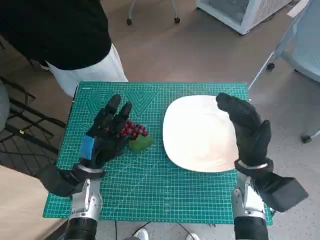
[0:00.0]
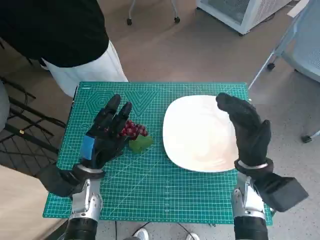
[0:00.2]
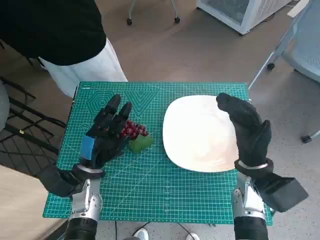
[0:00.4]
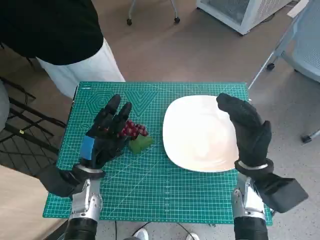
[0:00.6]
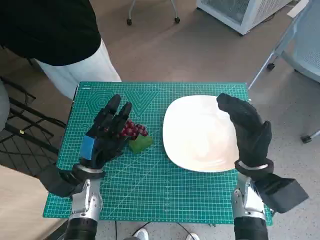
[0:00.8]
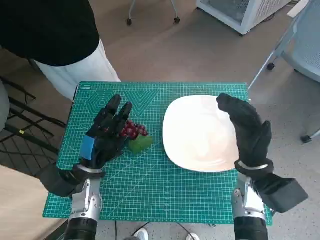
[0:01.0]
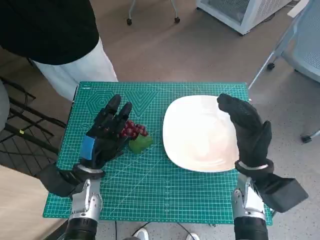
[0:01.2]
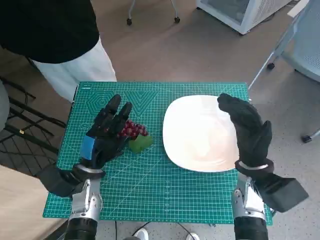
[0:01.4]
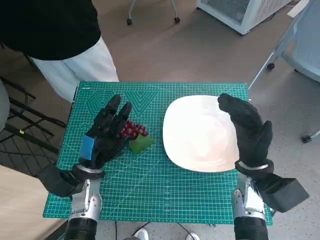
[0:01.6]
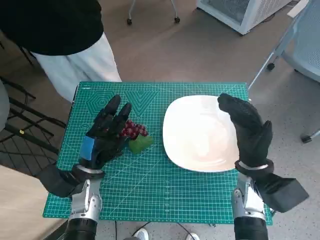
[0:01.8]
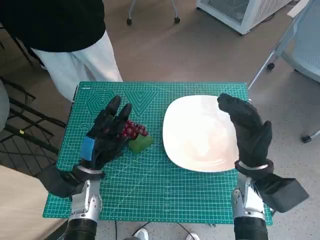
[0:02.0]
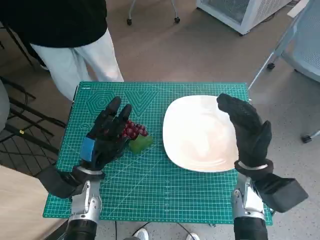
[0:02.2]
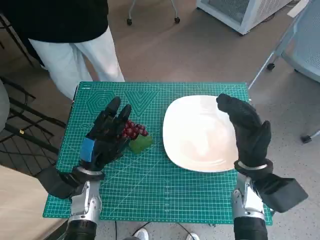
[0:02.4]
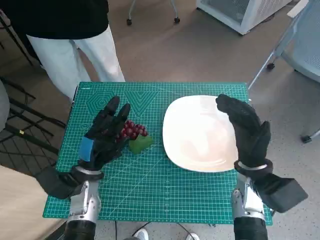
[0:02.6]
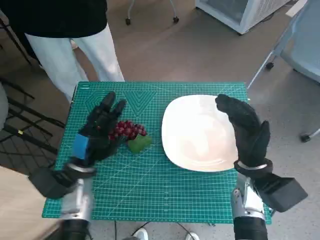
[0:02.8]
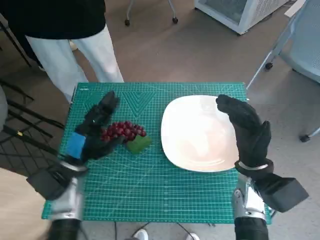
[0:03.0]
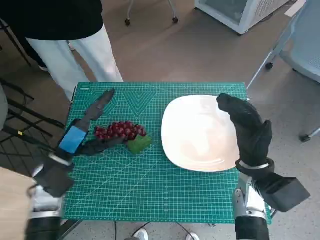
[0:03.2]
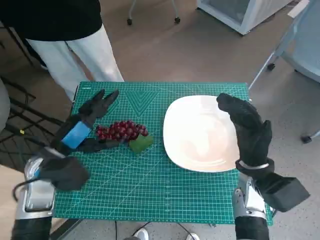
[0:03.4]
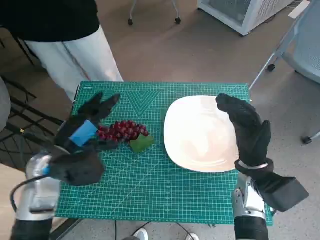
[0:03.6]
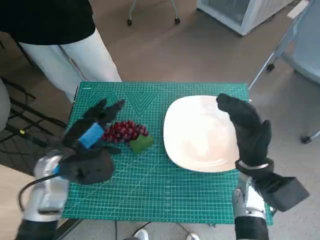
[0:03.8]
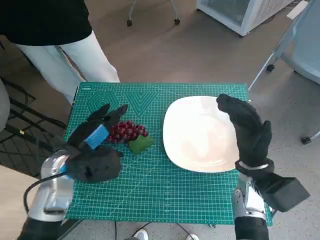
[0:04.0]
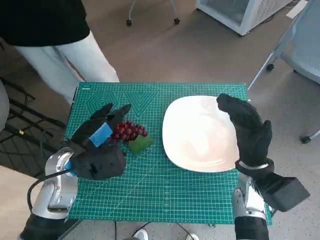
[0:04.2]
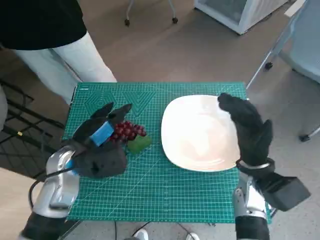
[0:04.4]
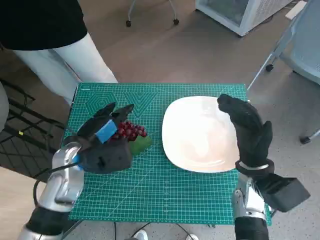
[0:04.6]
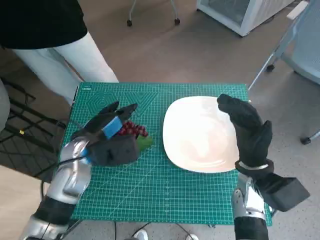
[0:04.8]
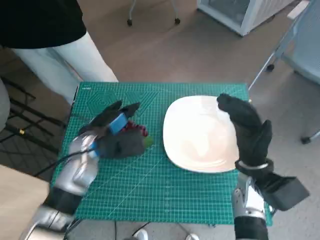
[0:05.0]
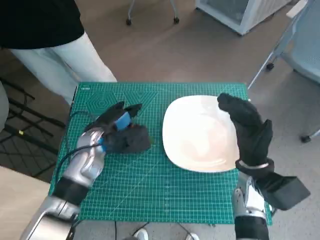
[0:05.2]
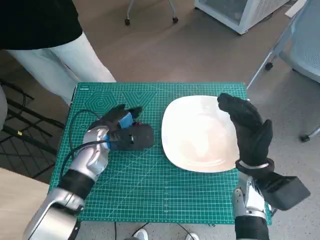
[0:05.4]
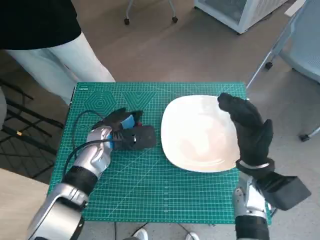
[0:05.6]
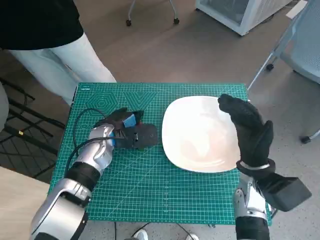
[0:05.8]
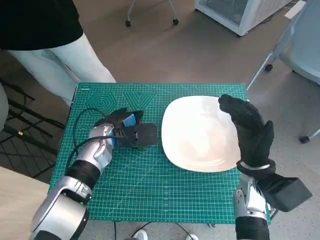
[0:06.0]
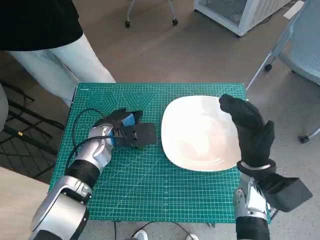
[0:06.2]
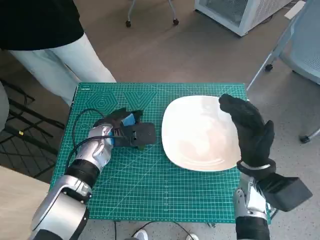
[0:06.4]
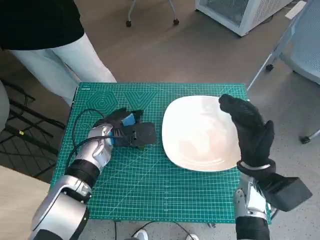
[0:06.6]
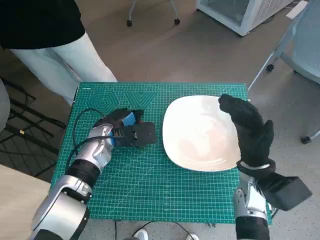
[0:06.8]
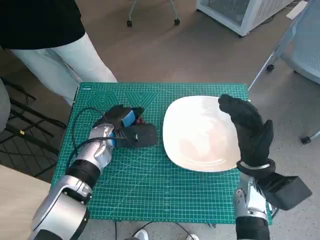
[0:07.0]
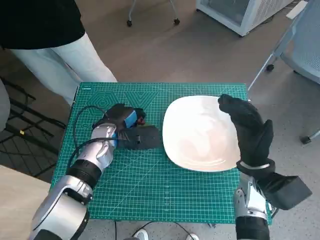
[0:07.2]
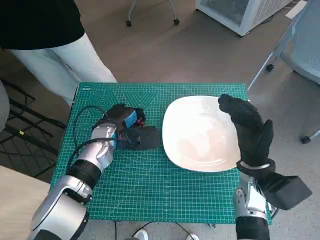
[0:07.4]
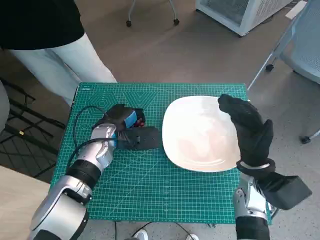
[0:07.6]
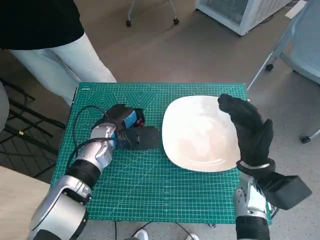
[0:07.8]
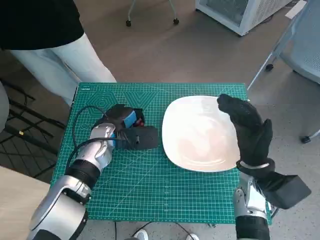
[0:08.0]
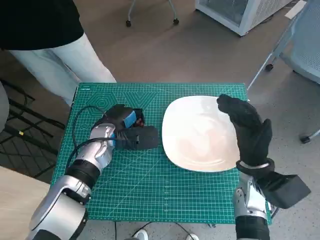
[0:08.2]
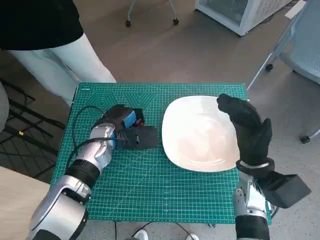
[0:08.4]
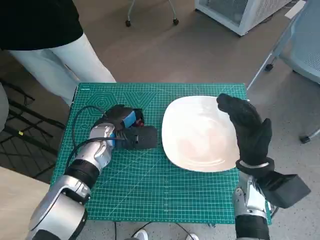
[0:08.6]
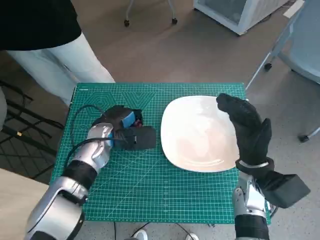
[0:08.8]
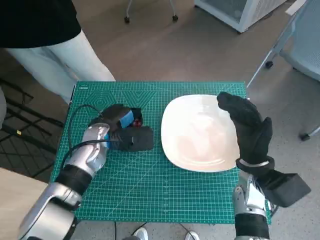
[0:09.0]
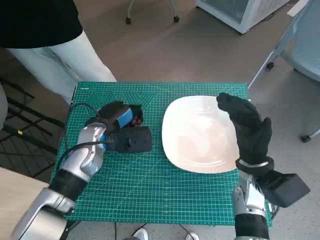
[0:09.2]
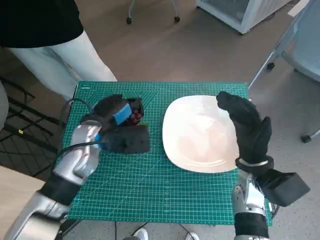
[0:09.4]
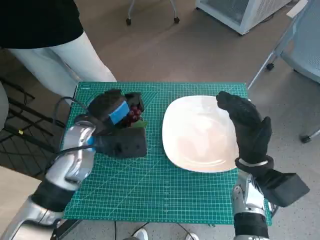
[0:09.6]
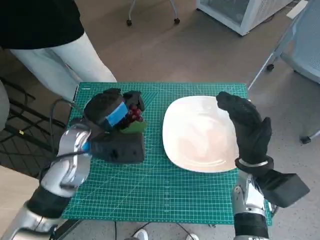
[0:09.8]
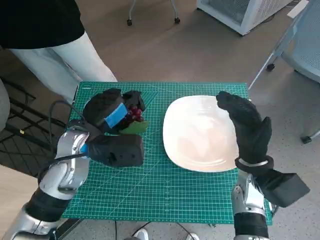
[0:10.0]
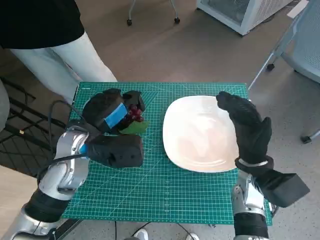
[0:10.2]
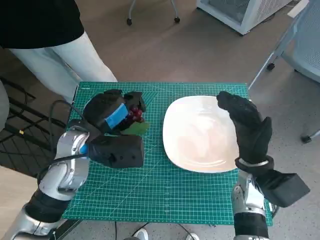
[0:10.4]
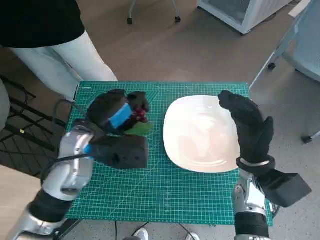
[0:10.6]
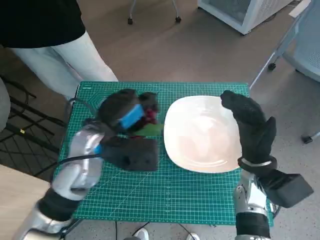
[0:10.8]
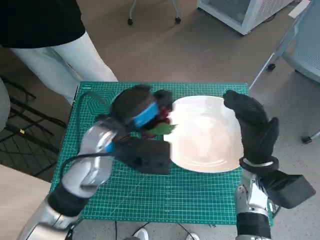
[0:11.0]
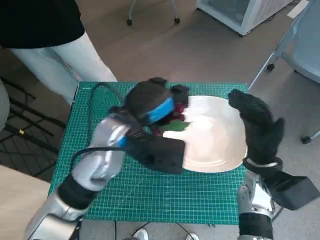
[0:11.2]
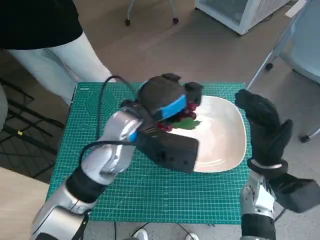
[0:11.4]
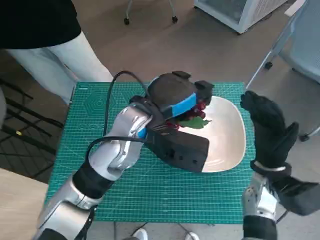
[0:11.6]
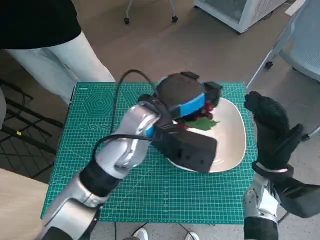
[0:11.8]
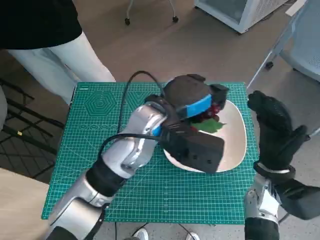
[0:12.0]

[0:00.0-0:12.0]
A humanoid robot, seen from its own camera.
Task of the whole recording: Pick up the grapes and put them on the plate.
Step, 0:00.0 to 0:06.4: Grasp the grapes with left hand.
0:03.0 to 0:04.4: The left hand shifts approximately 5 cm upward.
0:04.4 to 0:06.0: The left hand heads forward, covering approximately 10 cm.
0:06.0 to 0:07.6: There are only small adjustments of the hands.
0:07.6 to 0:09.0: Neither hand changes place.
0:09.0 to 0:10.4: The left hand shifts about 10 cm upward and backward.
0:10.4 to 0:12.0: The left hand goes approximately 15 cm to the right.

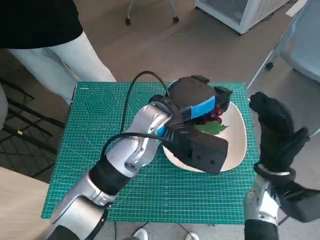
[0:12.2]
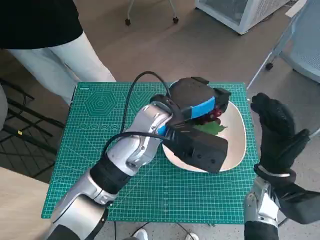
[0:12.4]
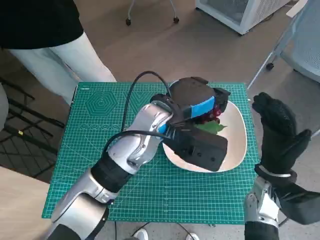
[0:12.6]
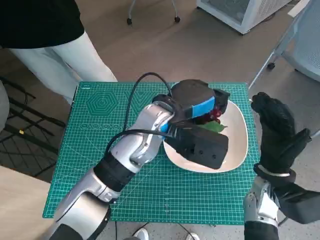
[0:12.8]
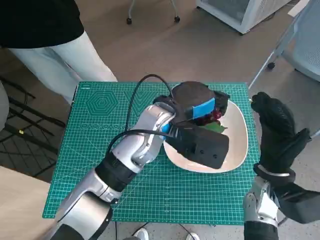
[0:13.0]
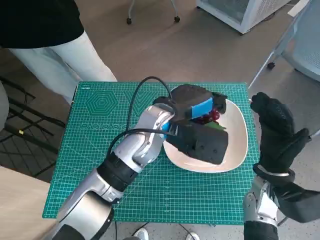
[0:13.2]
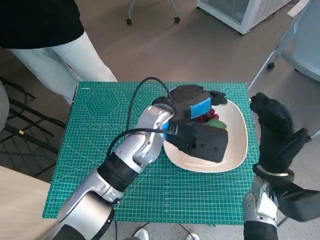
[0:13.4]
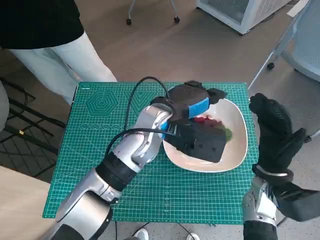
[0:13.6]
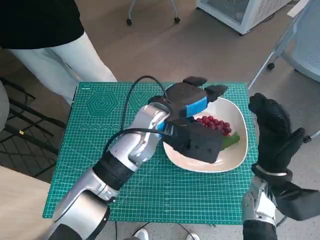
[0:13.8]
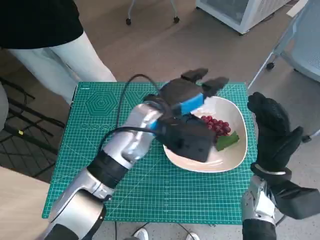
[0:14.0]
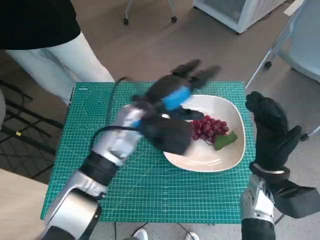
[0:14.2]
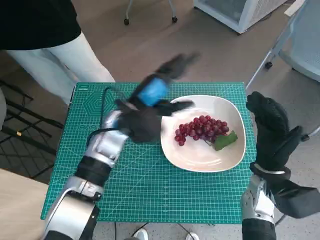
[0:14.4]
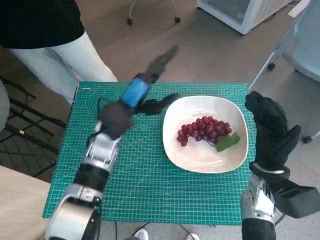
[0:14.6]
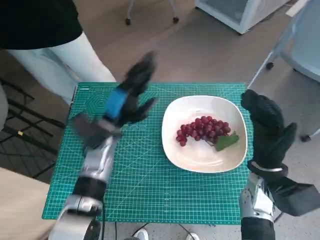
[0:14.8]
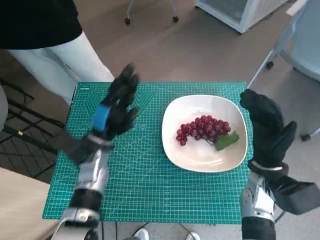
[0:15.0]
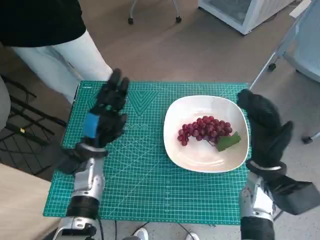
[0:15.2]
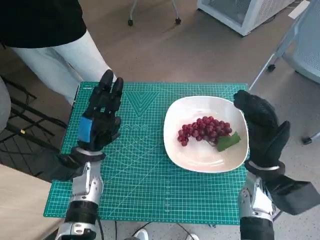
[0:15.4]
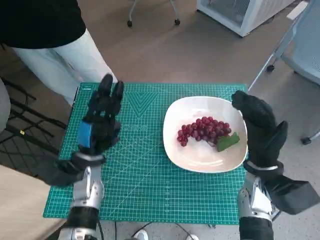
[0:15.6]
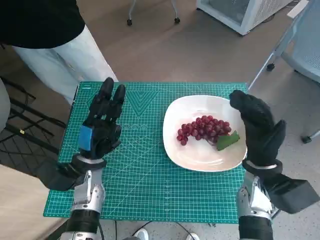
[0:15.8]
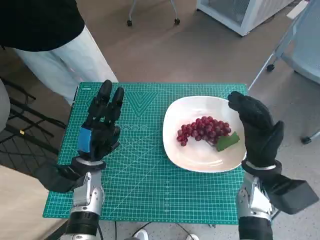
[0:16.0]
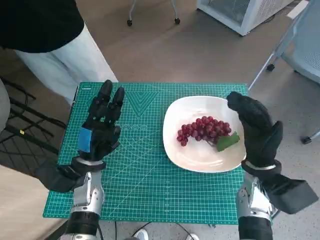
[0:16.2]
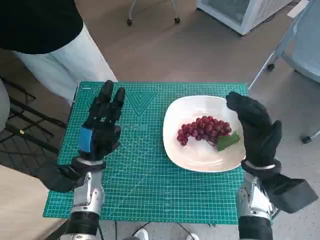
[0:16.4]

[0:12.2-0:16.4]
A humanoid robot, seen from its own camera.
Task of the whole recording: Pick up the grapes and put them on the plate.
0:12.2 to 0:13.6: There are only small adjustments of the hands.
0:13.6 to 0:15.0: The left hand shifts about 15 cm to the left and downward.
0:15.0 to 0:16.4: The left hand shifts by some 5 cm.

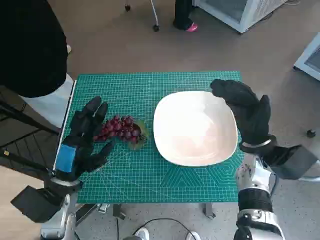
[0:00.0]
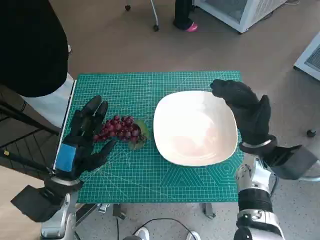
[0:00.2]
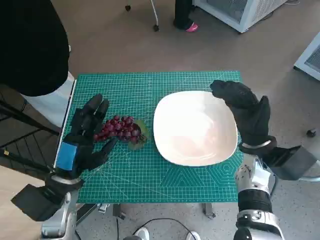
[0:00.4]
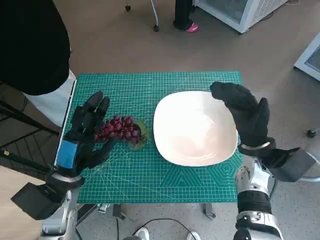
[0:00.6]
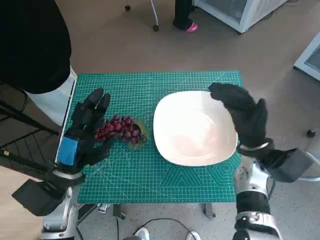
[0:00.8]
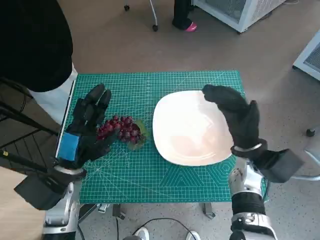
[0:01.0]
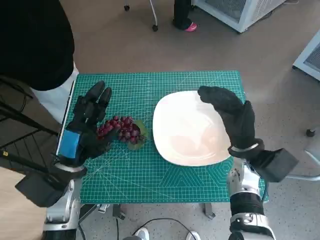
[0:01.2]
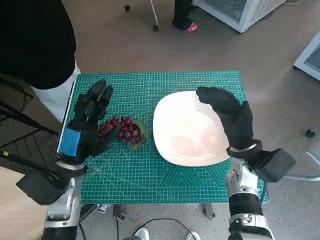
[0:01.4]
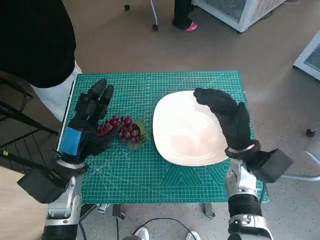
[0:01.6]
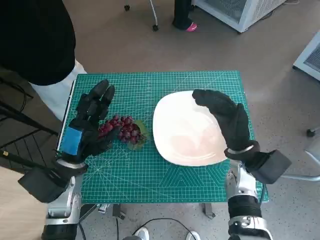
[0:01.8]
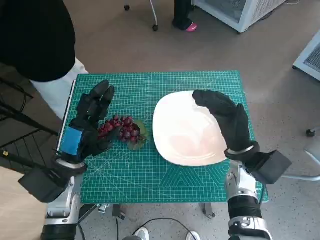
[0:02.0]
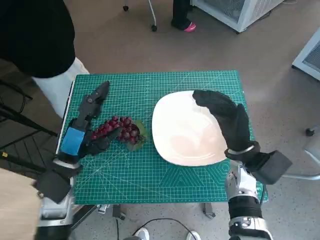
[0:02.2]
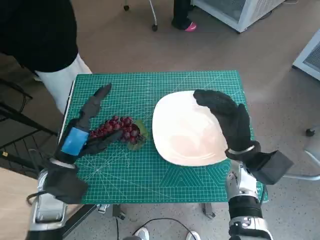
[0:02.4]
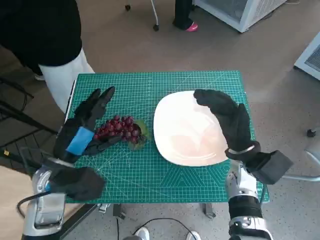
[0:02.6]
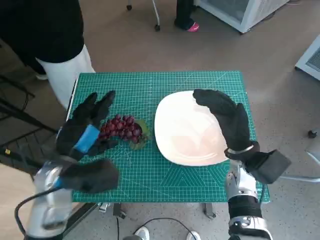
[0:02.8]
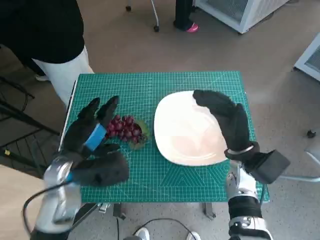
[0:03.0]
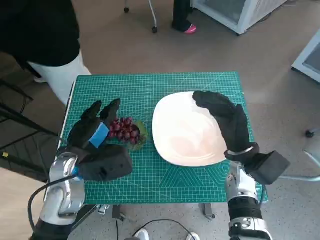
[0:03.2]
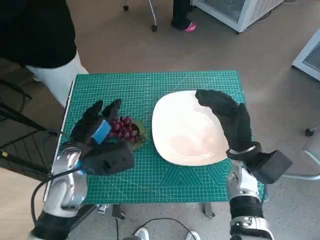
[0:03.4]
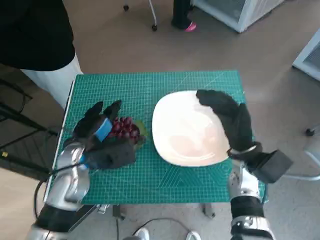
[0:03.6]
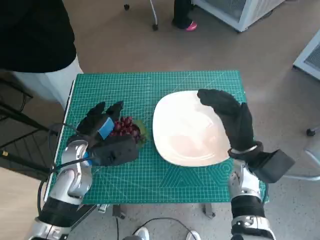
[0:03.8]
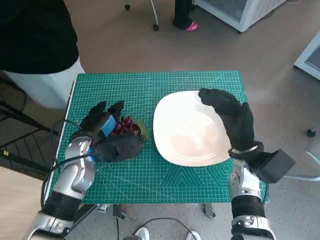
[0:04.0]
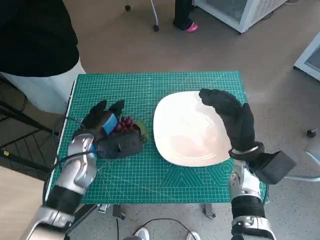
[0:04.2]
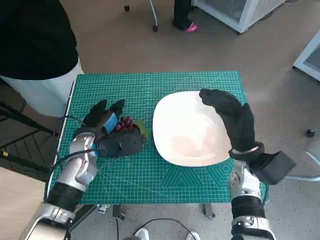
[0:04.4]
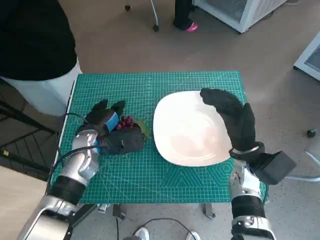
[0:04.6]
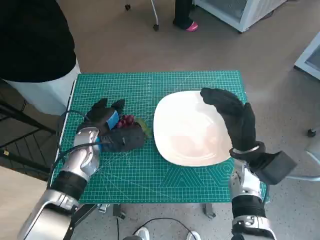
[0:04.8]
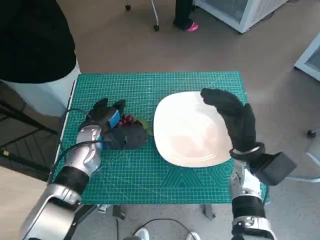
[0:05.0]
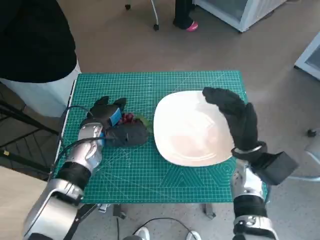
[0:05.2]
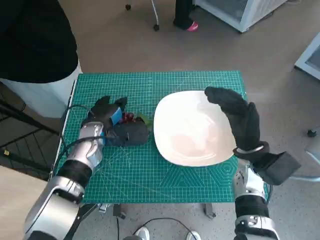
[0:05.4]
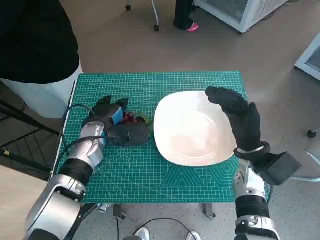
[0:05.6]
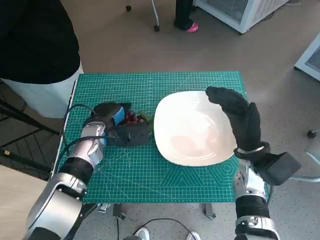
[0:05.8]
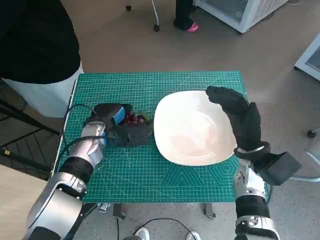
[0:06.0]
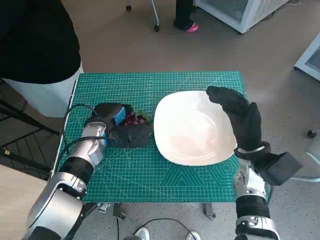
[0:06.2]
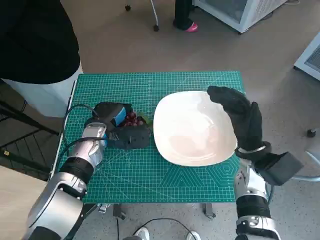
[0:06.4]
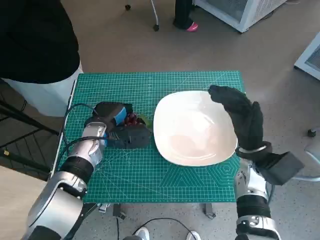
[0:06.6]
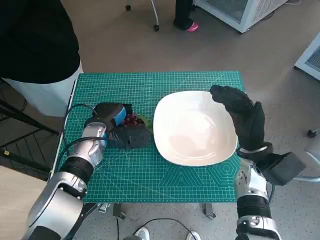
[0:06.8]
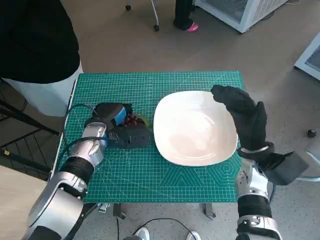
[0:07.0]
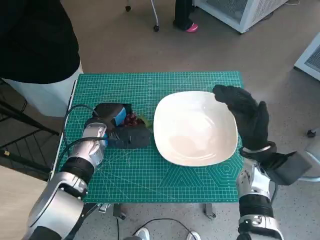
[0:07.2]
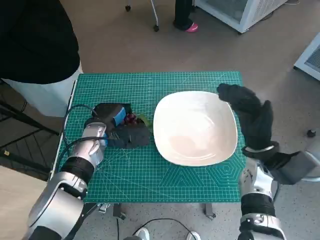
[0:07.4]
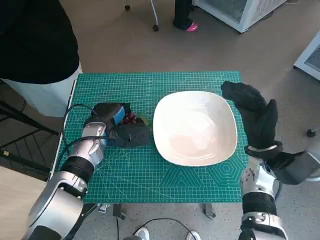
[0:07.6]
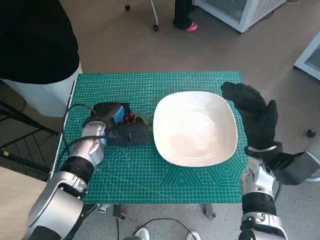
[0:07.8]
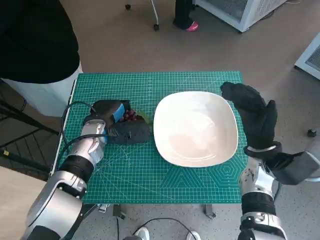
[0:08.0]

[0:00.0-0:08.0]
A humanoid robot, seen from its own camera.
Task of the whole recording: Pick up the grapes and put them on the plate.
Step, 0:00.0 to 0:07.4: Grasp the grapes with left hand.
0:03.2 to 0:04.8: The left hand goes some 10 cm forward.
0:04.8 to 0:08.0: The hands move only a little.
